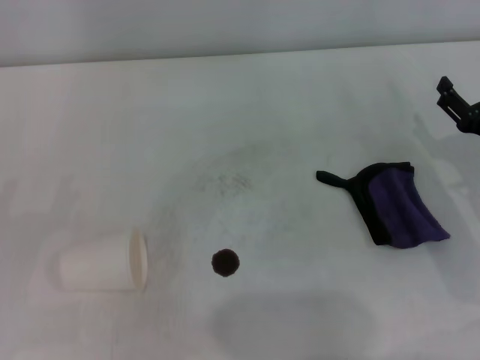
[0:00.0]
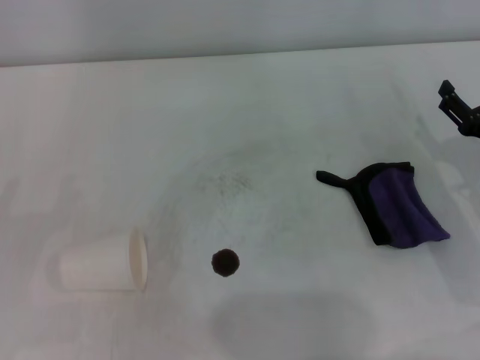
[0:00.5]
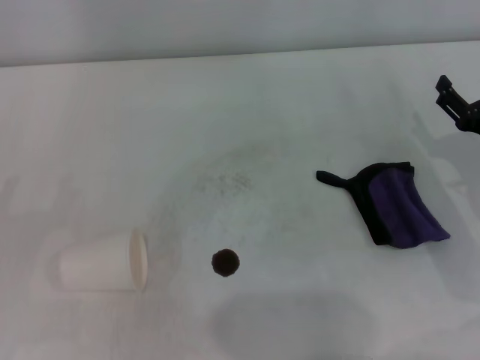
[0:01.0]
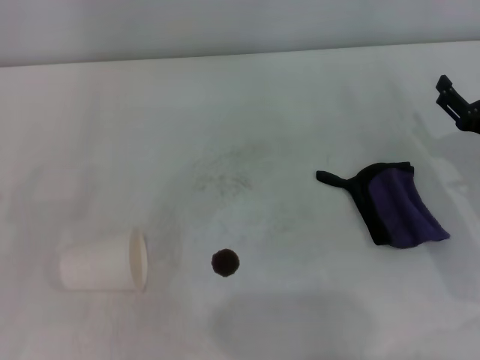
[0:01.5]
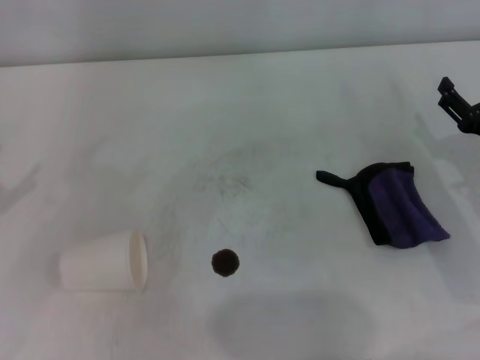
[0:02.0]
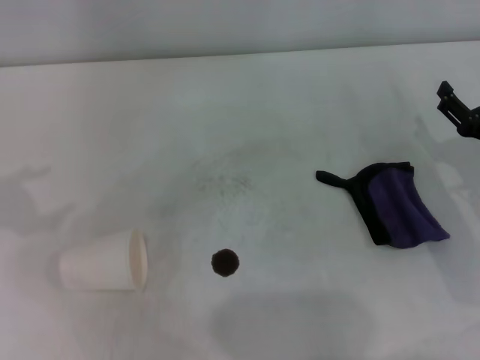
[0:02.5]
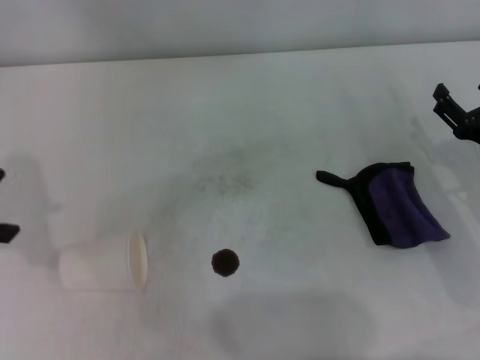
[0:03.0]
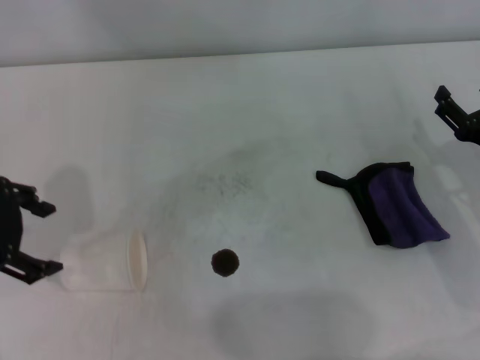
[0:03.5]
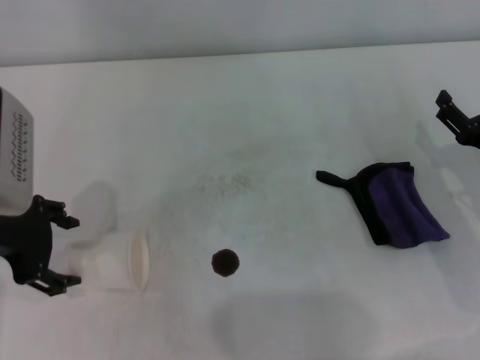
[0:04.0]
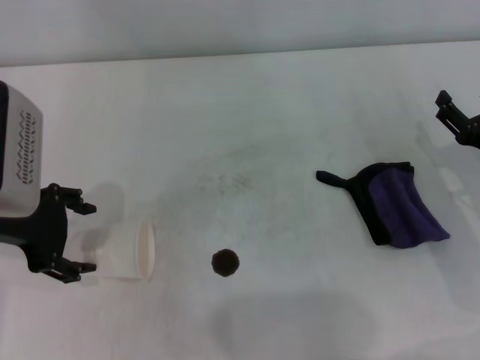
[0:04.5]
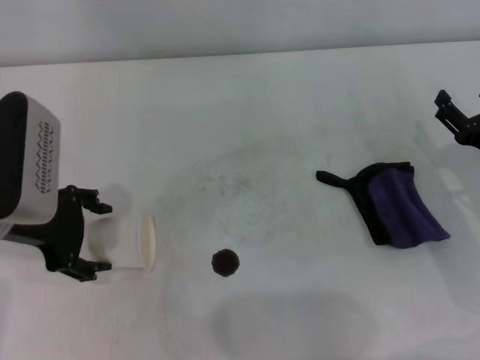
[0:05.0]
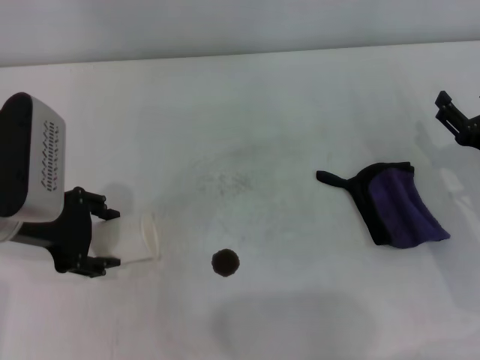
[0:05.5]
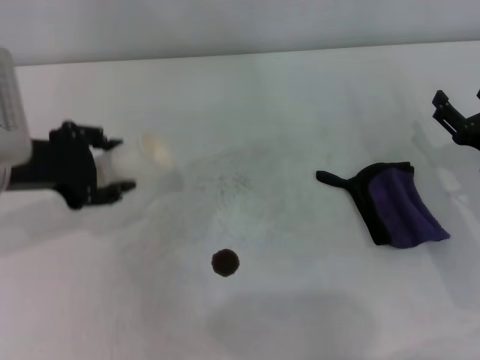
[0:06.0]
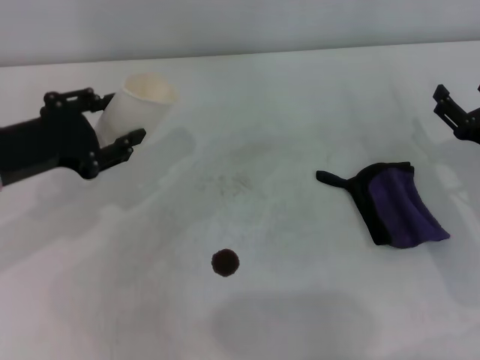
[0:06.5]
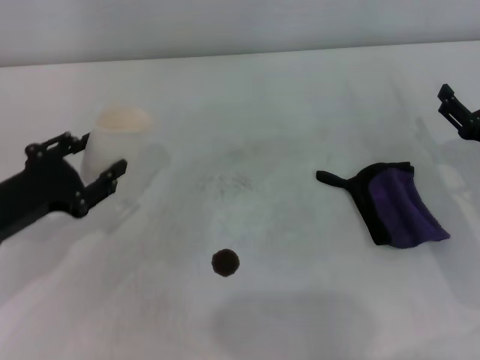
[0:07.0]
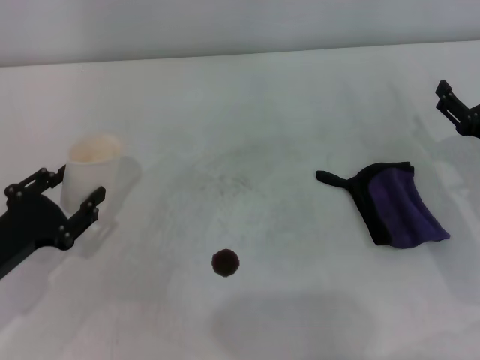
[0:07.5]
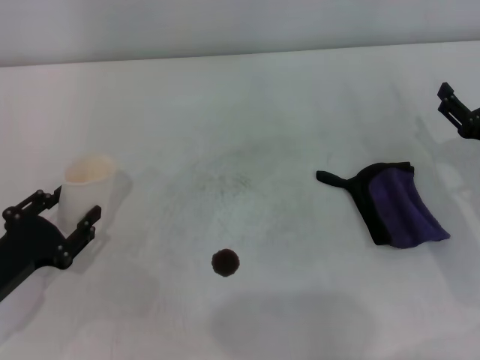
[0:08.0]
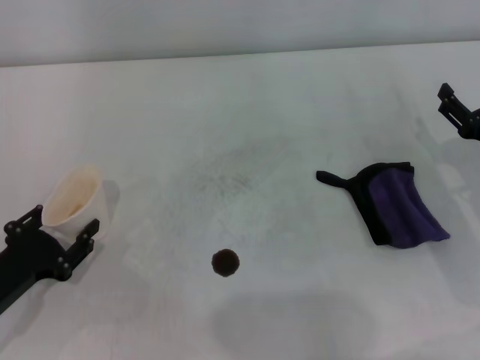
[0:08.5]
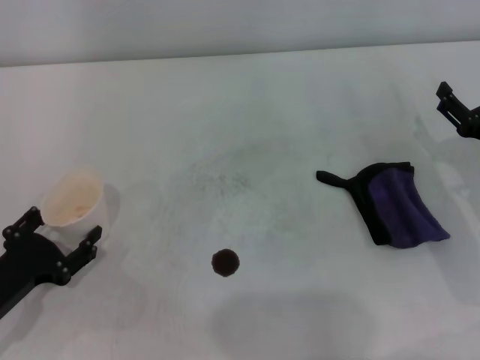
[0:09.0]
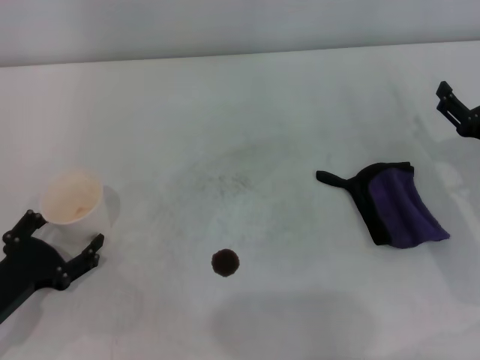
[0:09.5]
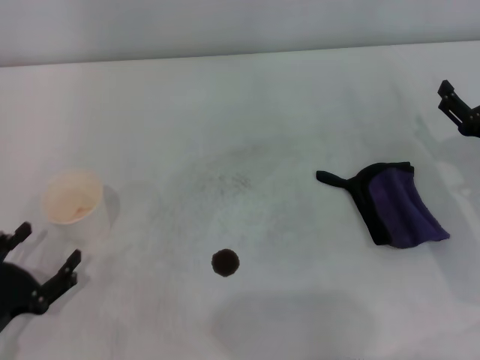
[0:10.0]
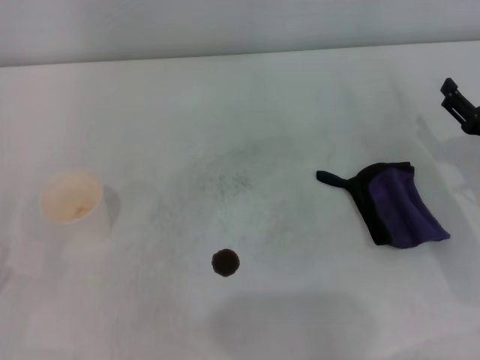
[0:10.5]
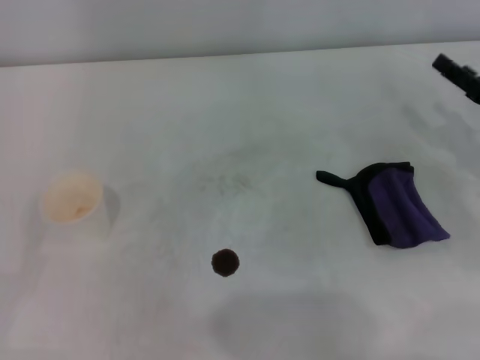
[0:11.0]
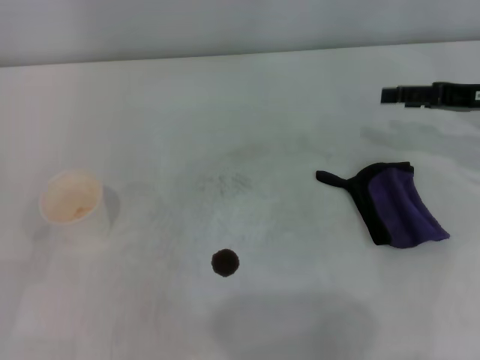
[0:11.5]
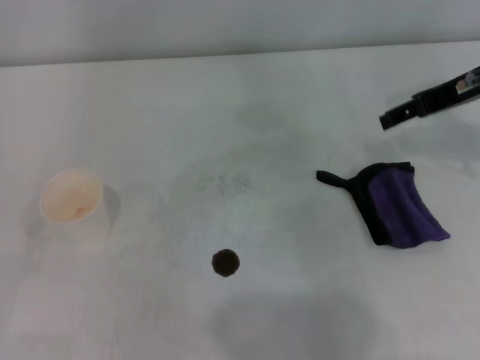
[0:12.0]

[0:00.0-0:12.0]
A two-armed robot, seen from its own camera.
Step, 0:00.0 to 0:05.0: Grasp the paper cup with the left gripper.
Step, 0:06.0 to 0:09.5: Stand the paper cup upright with the left gripper.
0:02.0 to 0:04.0: The left gripper heads to the right, covering approximately 15 cm.
0:04.0 to 0:06.0: The left gripper closes up.
0:06.0 to 0:08.0: The left gripper moves downward and backward, some 15 cm.
0:08.0 to 0:10.0: The left gripper is displaced backward by some 5 cm, and opens up.
0:10.0 to 0:12.0: The left gripper goes roughly 5 cm to the left; the right gripper heads upward and forward, covering approximately 20 cm.

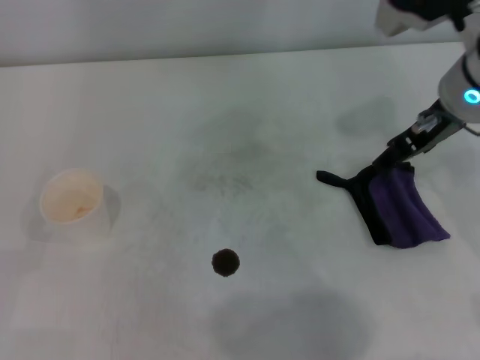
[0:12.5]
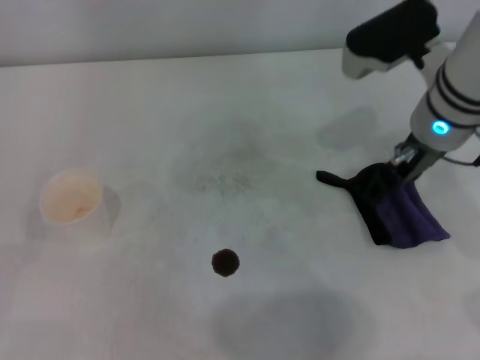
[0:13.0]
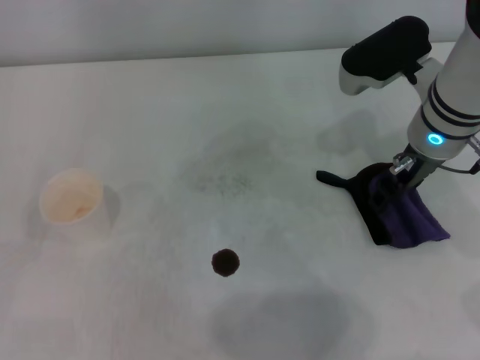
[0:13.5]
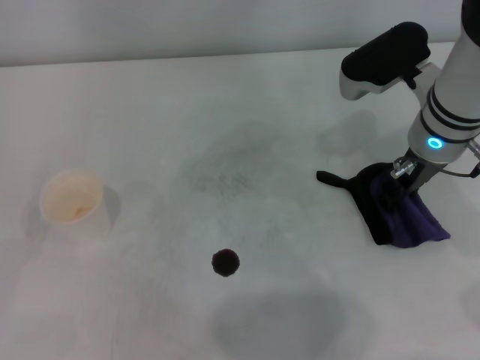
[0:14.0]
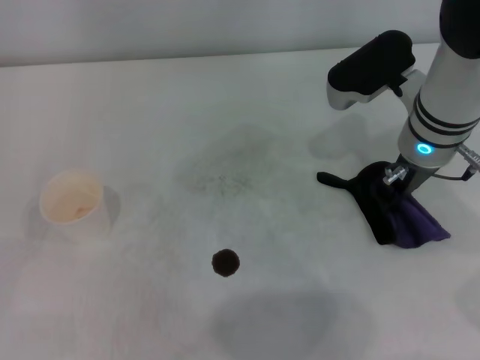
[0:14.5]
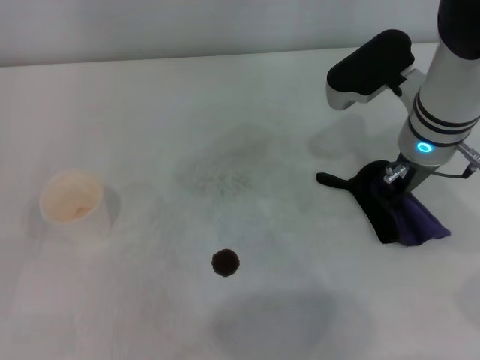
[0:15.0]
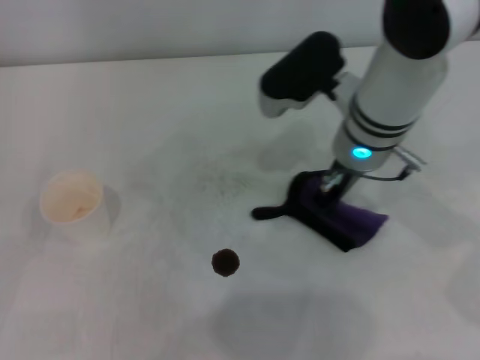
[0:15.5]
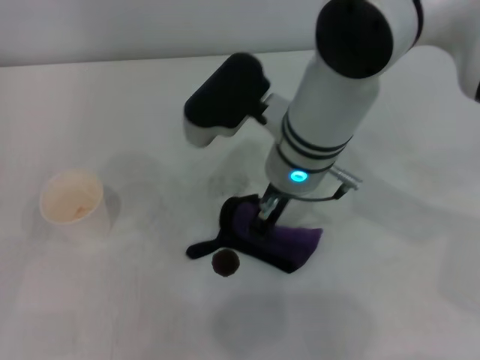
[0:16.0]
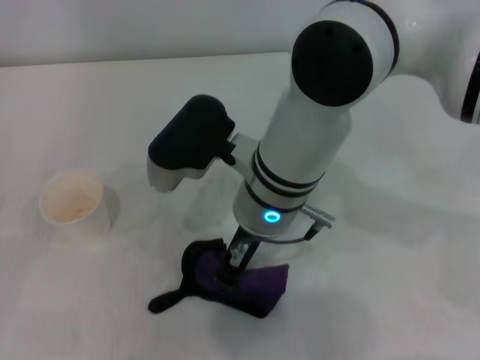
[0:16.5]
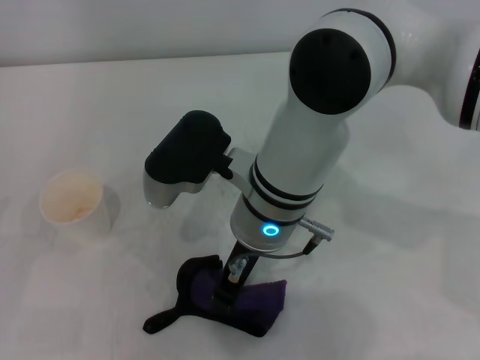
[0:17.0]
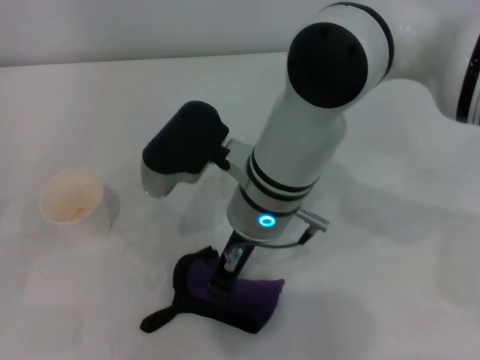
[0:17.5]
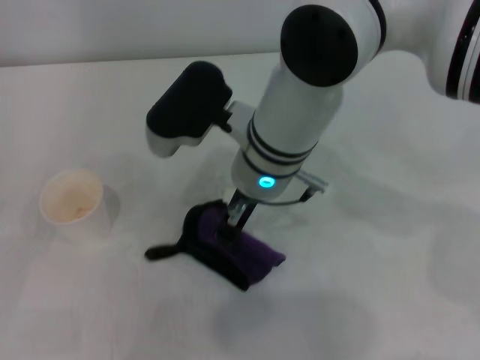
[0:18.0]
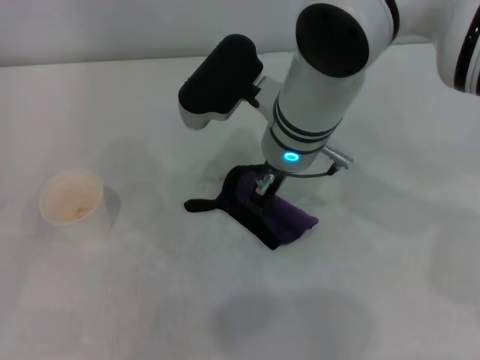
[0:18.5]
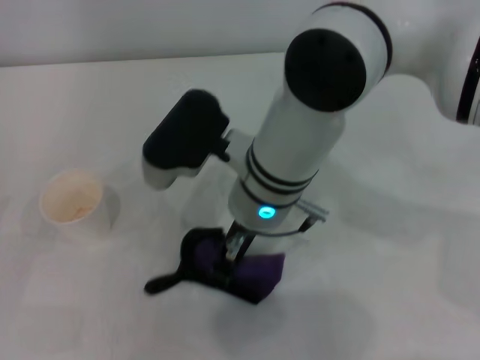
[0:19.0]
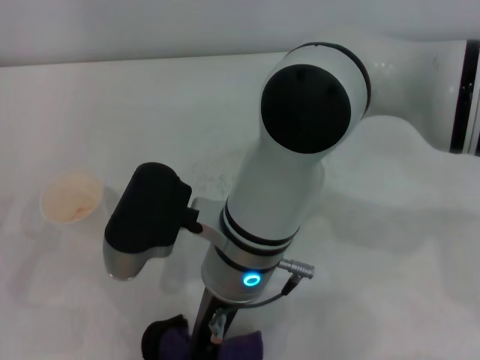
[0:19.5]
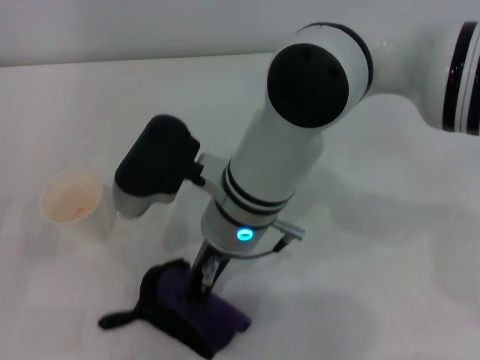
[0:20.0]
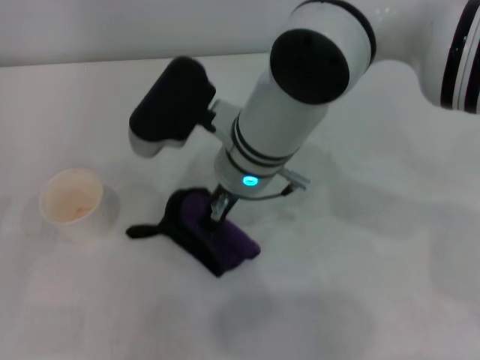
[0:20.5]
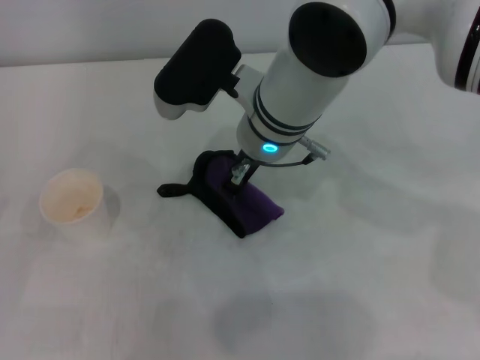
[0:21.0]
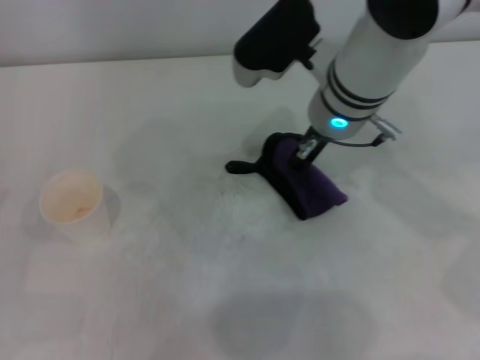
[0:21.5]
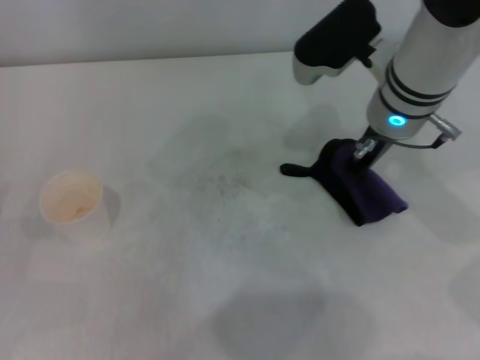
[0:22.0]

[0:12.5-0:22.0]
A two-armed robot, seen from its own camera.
Step, 0:12.5 to 0:14.5: Grasp the rag with the right gripper.
0:12.5 to 0:14.5: The right gripper travels downward by some 5 cm, and closes up.
0:14.5 to 0:16.5: The right gripper travels to the left by approximately 15 cm.
0:20.0 to 0:22.0: The right gripper shifts roughly 15 cm to the right and forward.

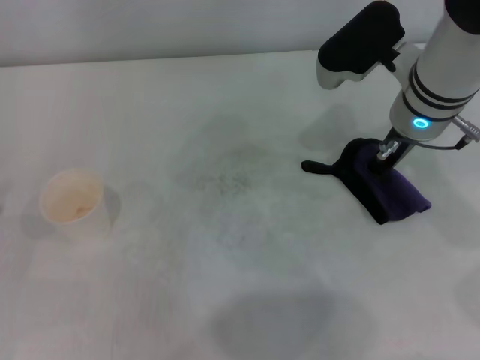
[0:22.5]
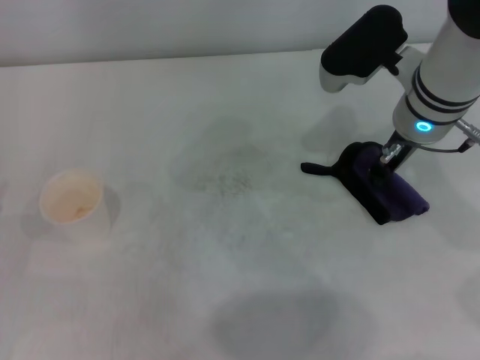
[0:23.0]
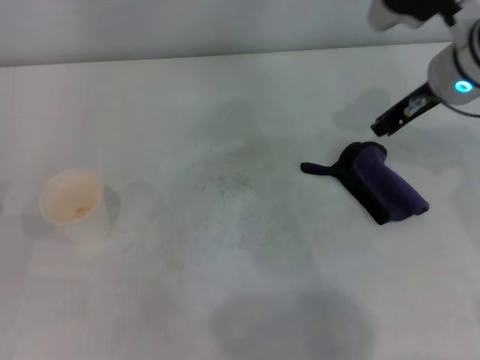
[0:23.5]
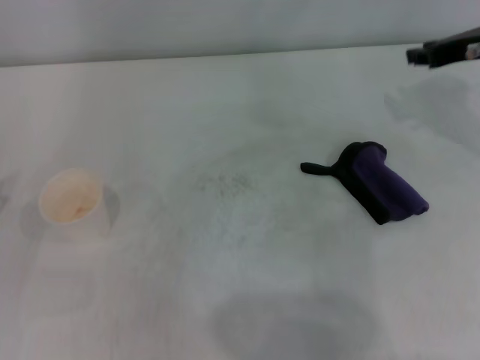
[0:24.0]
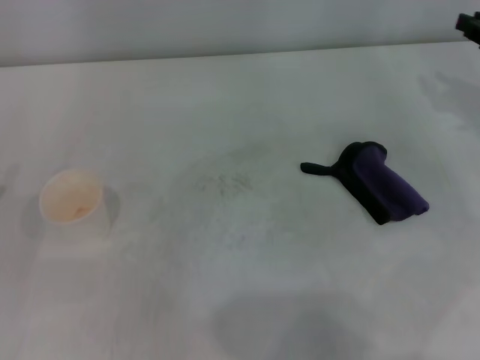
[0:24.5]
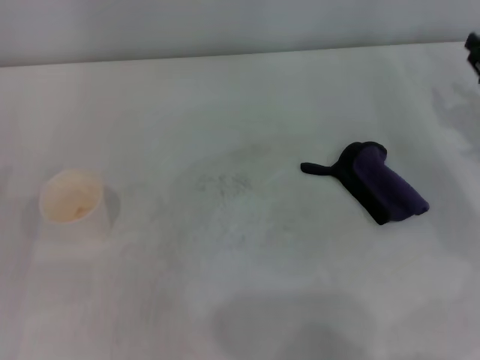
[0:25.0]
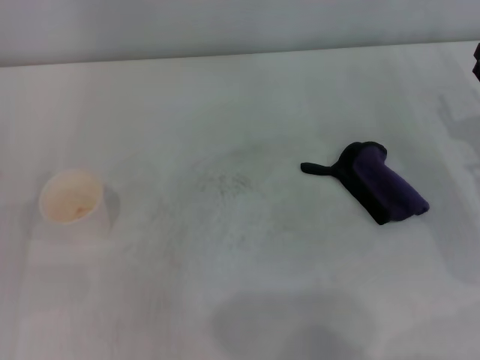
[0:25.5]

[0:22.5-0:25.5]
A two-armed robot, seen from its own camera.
Step, 0:22.5 to 0:23.0: Place the rag on the table with the right gripper.
0:22.5 to 0:24.0: The right gripper travels to the right by some 15 cm.
0:24.0 to 0:25.5: The right gripper shifts some 15 cm downward and backward.
